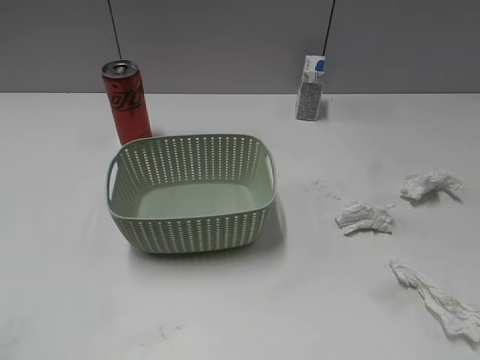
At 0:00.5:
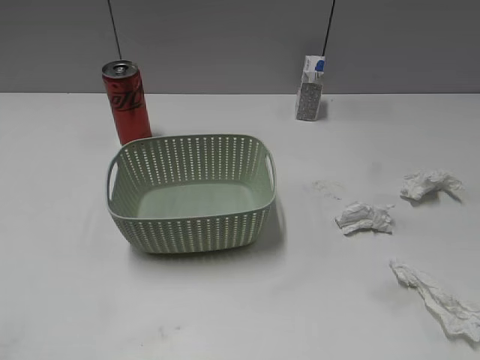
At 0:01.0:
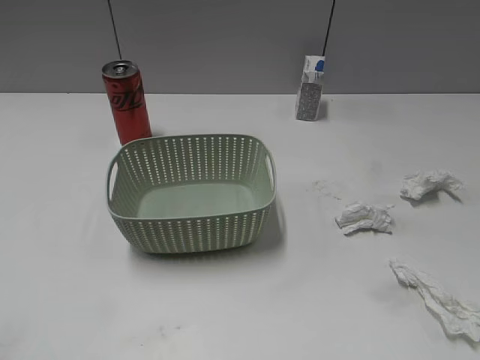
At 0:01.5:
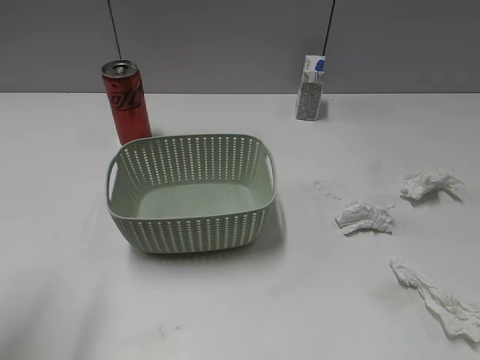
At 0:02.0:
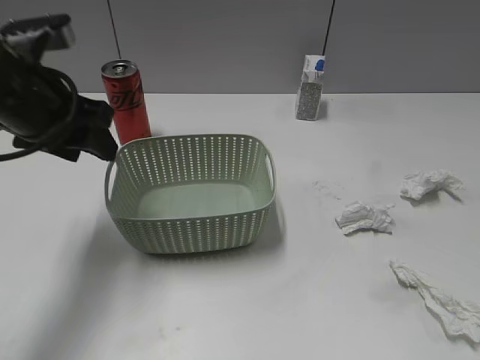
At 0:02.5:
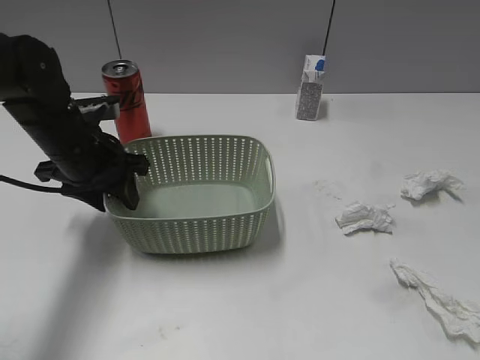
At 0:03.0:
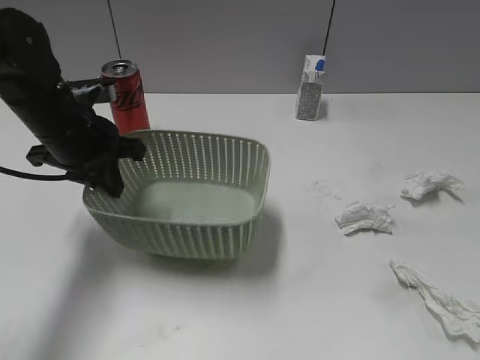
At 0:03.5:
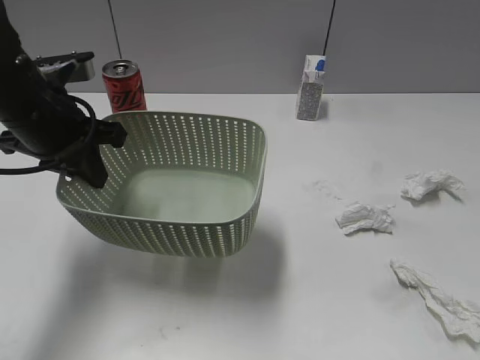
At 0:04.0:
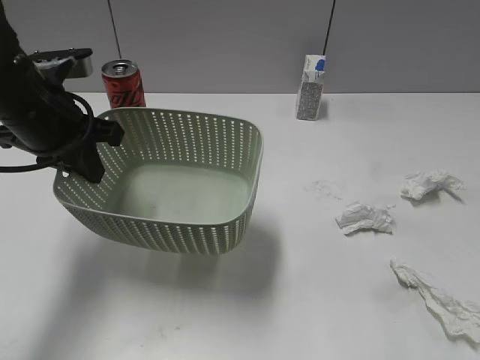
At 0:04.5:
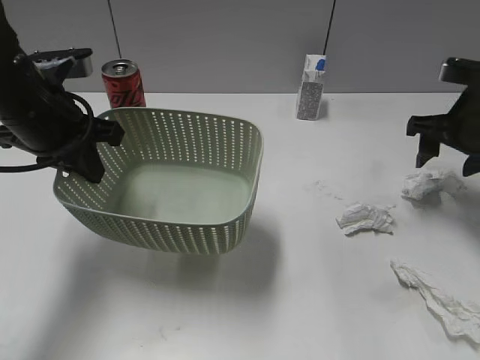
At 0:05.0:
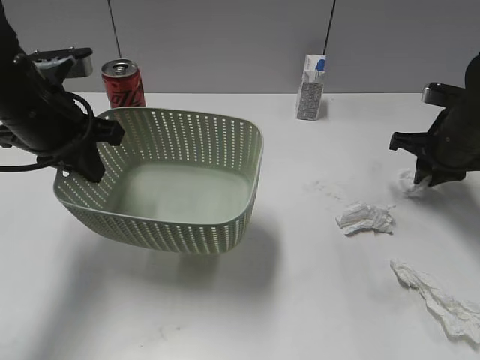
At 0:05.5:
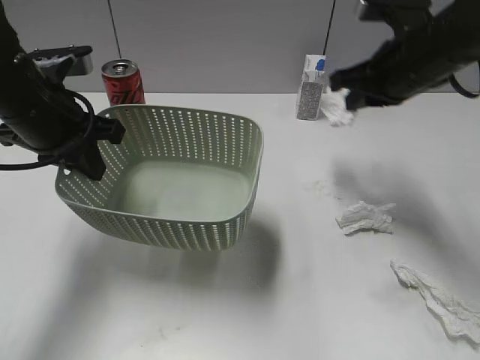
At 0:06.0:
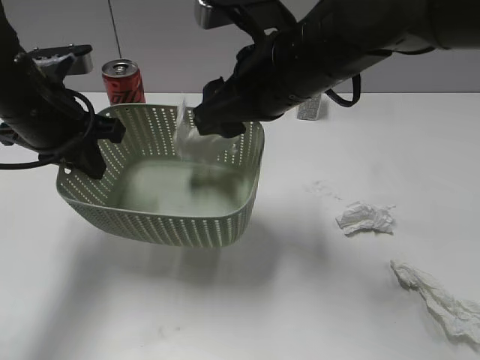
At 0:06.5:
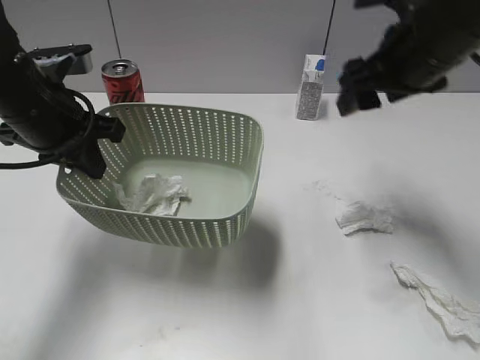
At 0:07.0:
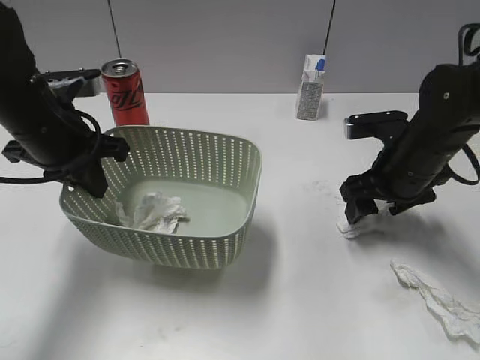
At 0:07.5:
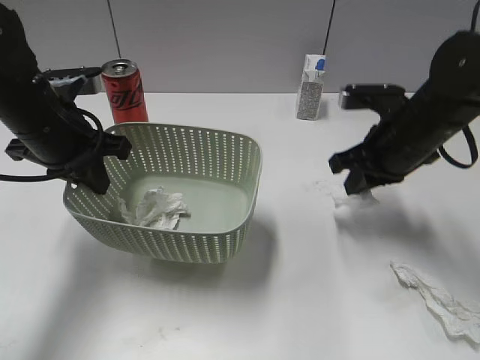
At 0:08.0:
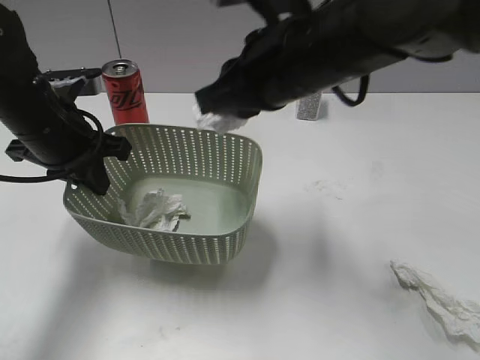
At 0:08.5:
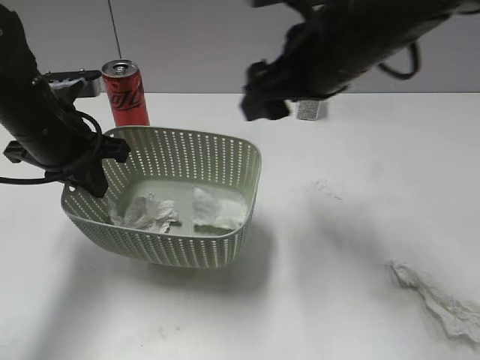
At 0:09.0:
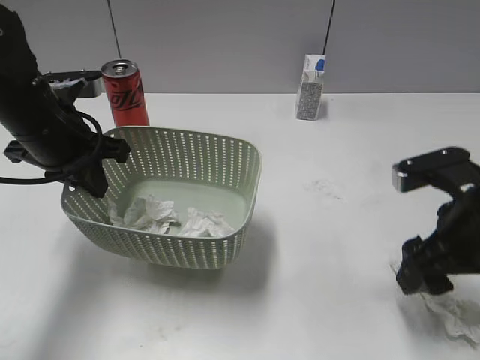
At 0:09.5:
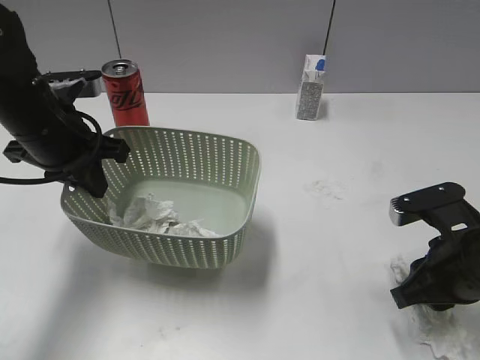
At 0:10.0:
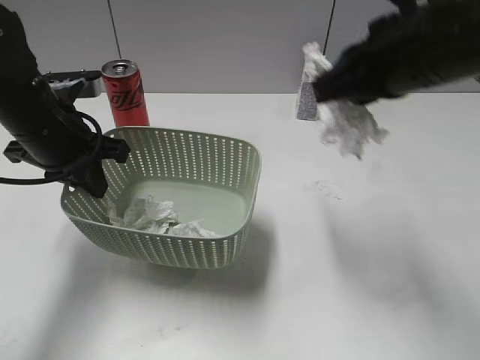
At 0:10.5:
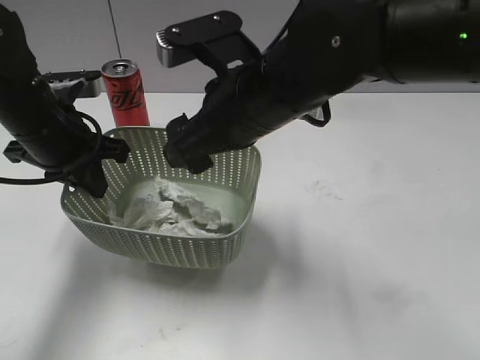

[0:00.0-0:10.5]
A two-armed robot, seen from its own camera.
Step, 0:01.5 to 0:02.5: Grasp the basket with left gripper.
Step, 0:03.5 to 0:05.0: Grasp the waste paper with right gripper.
Step, 0:05.5 to 0:06.0: Place the waste paper in the basket with right gripper.
Step, 0:06.5 to 0:07.5: Grasp the waste paper with right gripper.
Step, 0:08.0 to 0:08.5: Place the waste paper in the basket with right gripper.
Step, 0:09.0 to 0:09.5: Grasp the waste paper with right gripper.
Step, 0:10.0 to 0:10.5: Place the waste paper in the basket with right gripper.
0:02.0 to 0:04.0: The right gripper shifts roughly 15 cm forward, while the left gripper moves roughly 10 cm downward and comes back, and closes up.
0:04.0 to 0:06.5: The right gripper moves forward and to the left, roughly 20 cm, and closes, then reopens.
0:06.5 to 0:08.5: The right gripper heads to the left, covering some 10 cm, and closes, then opens again.
0:08.5 to 0:10.5: The right gripper travels to the right and back again, some 15 cm each way, and closes, then reopens.

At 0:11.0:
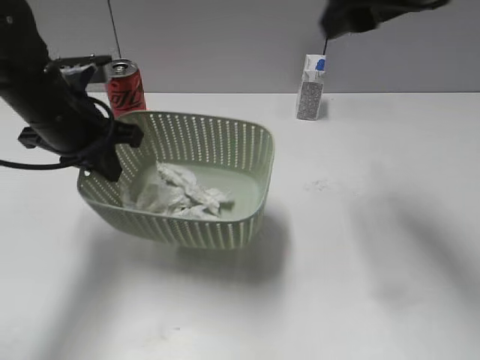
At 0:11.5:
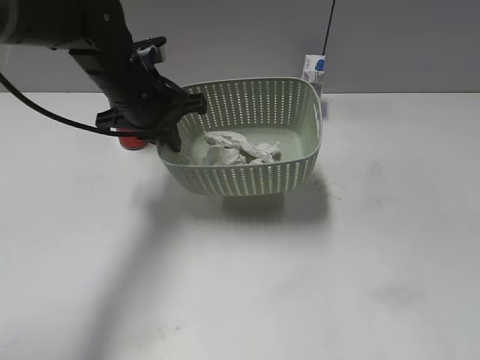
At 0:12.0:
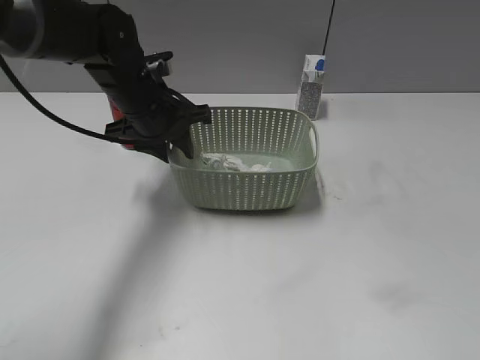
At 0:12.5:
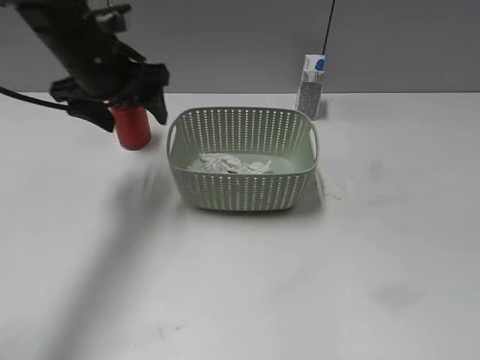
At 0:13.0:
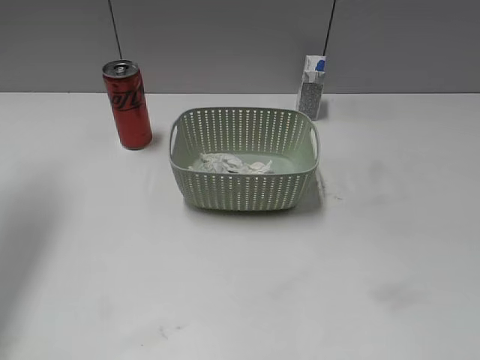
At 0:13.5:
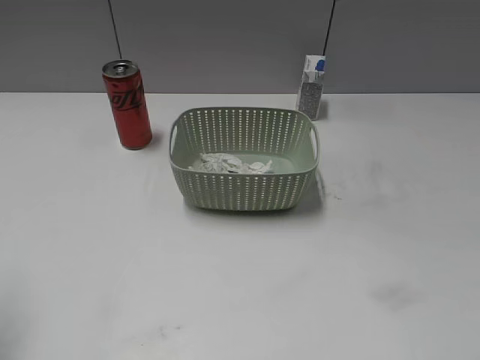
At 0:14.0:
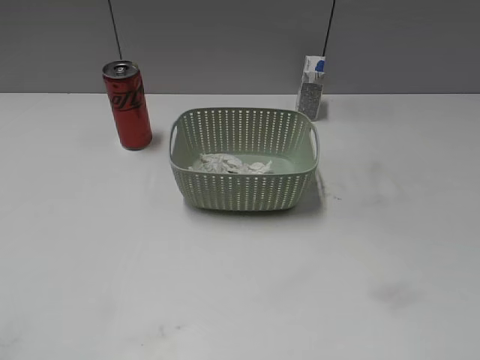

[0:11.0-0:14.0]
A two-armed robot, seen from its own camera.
Step, 0:11.0 to 0:12.0: Place the basket on the table with left gripper.
0:11.0 to 0:12.5: The left gripper goes some 5 cm forward, and opens up, while the right gripper travels backward and to the right by approximately 35 cm.
0:12.5 to 0:14.0: The left gripper heads backward and to the left, covering roughly 40 cm.

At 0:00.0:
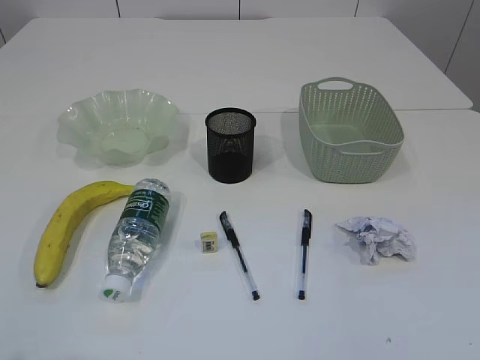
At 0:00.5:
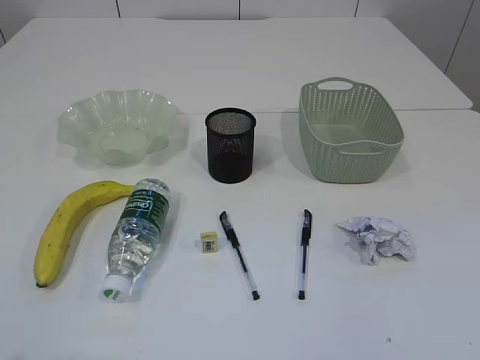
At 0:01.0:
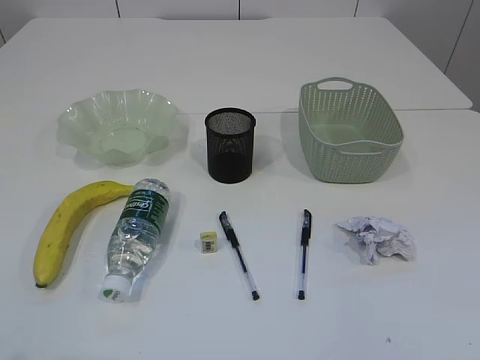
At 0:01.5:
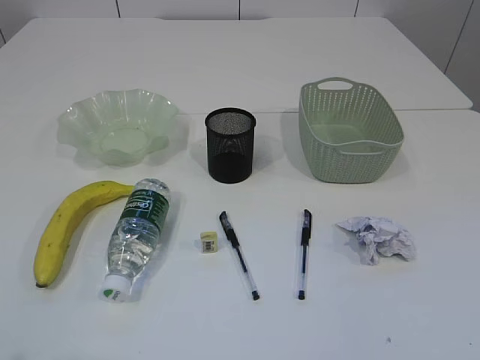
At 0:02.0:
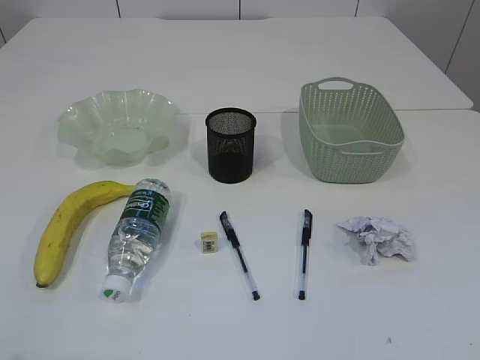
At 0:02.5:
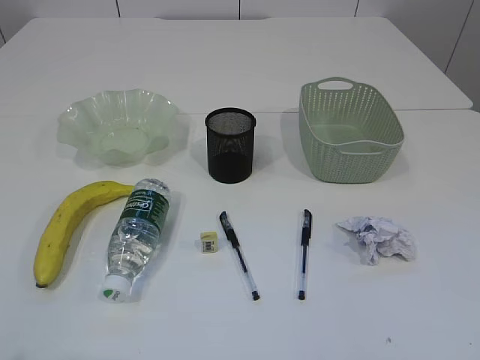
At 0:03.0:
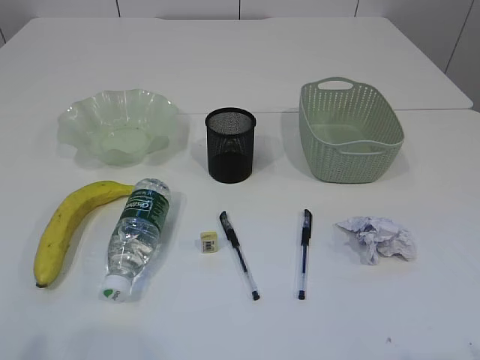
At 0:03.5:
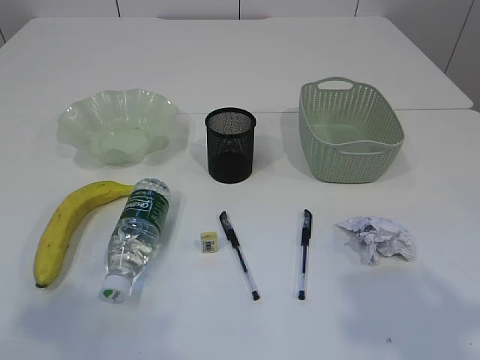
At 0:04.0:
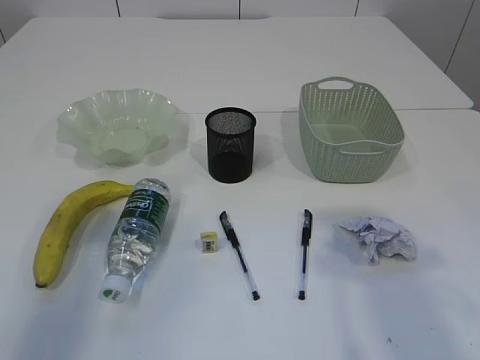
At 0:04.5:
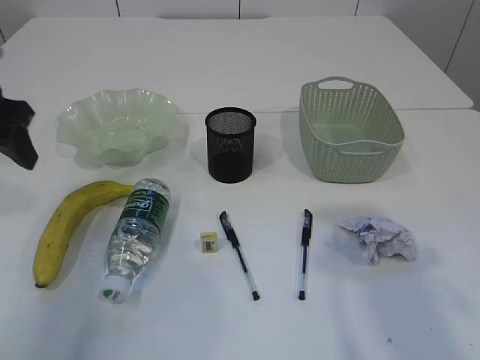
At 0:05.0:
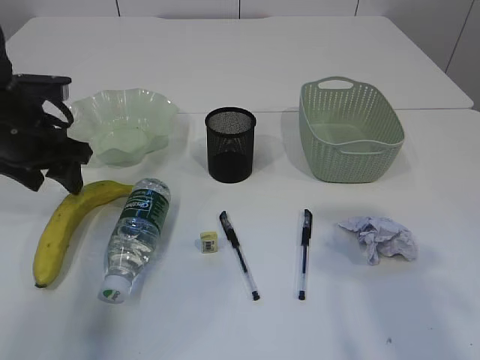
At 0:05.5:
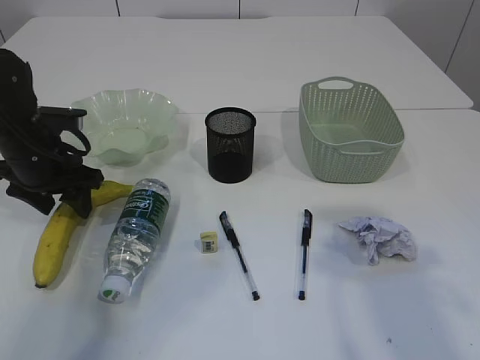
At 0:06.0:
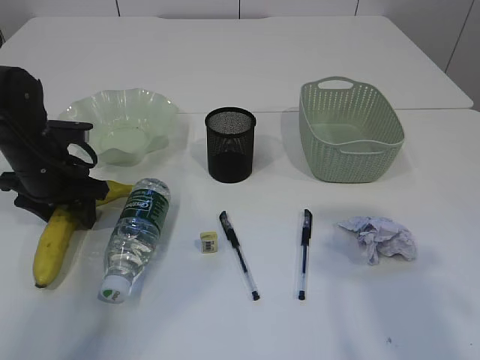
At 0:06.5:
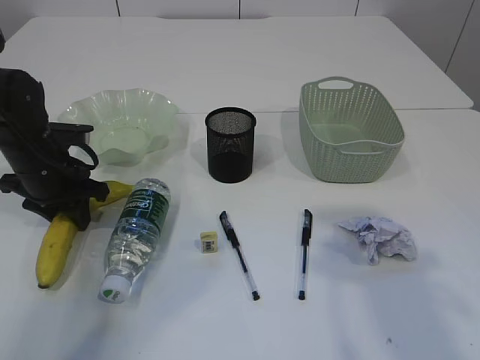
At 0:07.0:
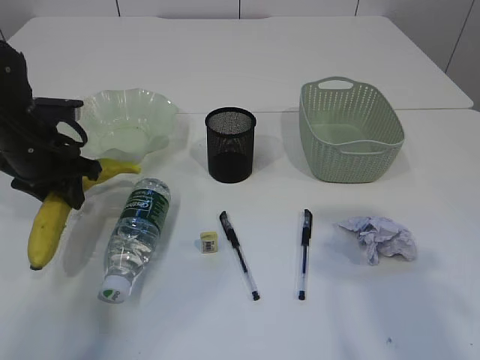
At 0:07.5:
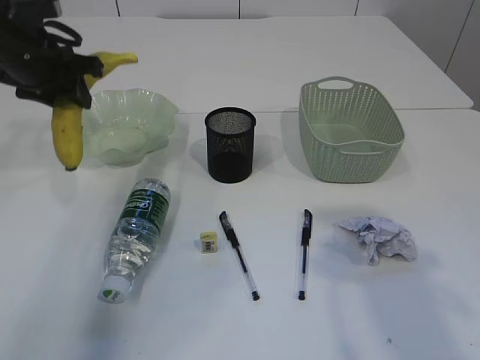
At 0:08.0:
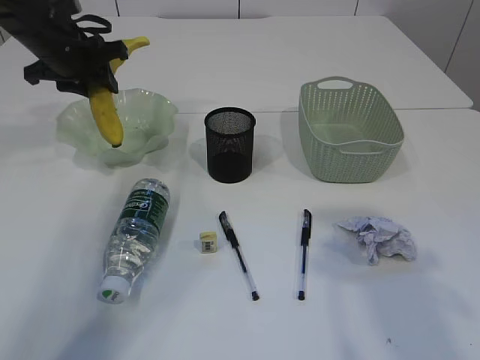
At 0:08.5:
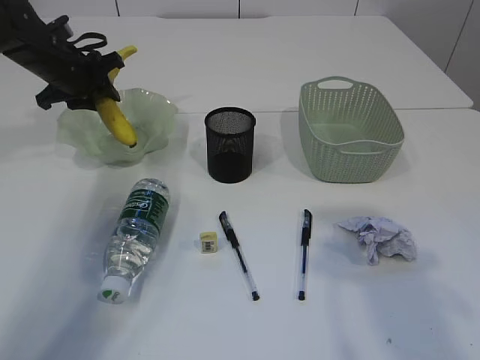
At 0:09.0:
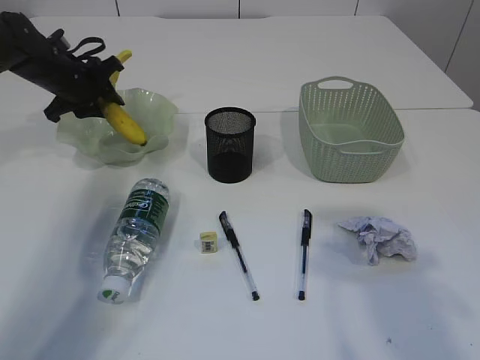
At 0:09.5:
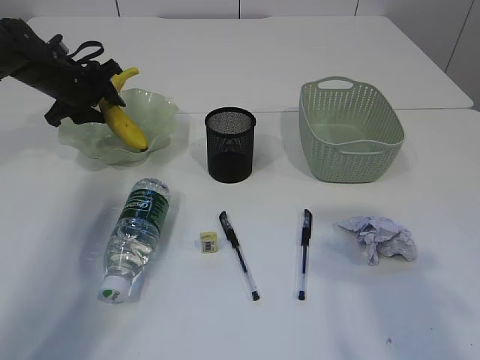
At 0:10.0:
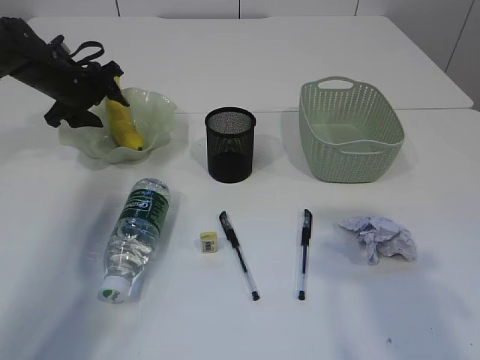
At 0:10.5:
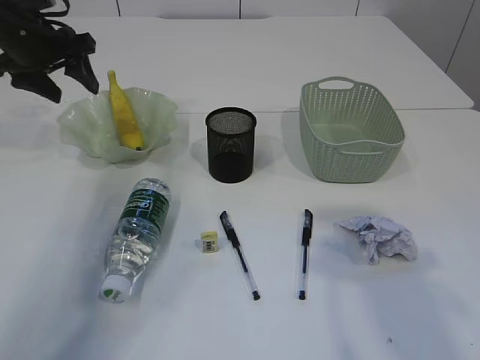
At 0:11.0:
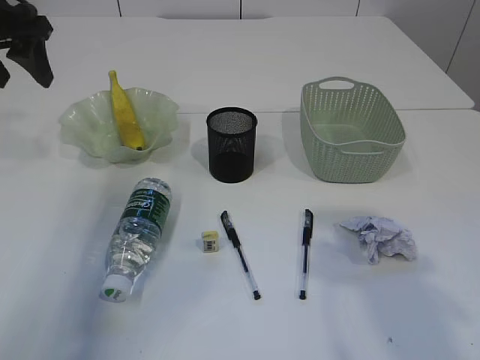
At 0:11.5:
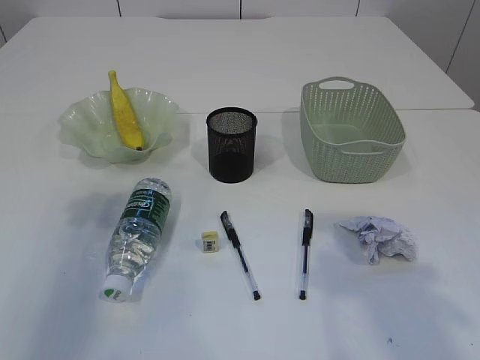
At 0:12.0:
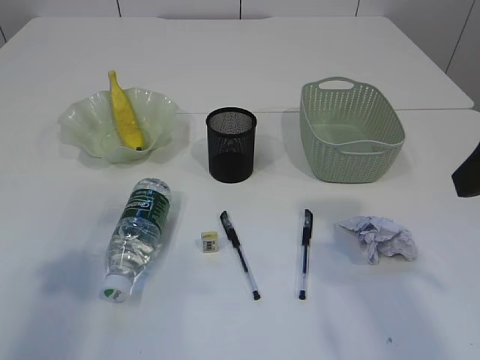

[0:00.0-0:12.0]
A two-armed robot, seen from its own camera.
Step, 0:07.5 to 0:10.0: Place the banana in the plate.
0:02.0 to 0:04.0: The right gripper travels forward and upward by some 20 cm; the left gripper travels forward by approximately 20 cm.
0:04.0 to 0:06.0: The left gripper travels downward and forward by approximately 25 cm.
0:06.0 to 0:08.0: The left gripper goes about 15 cm upward and forward, and closes its fingers.
0:08.0 to 0:10.0: The left gripper heads downward, covering roughly 10 cm, and opens.
0:10.0 to 0:12.0: The left gripper travels backward by roughly 35 cm.
